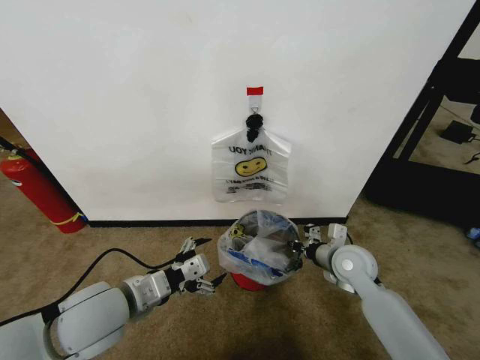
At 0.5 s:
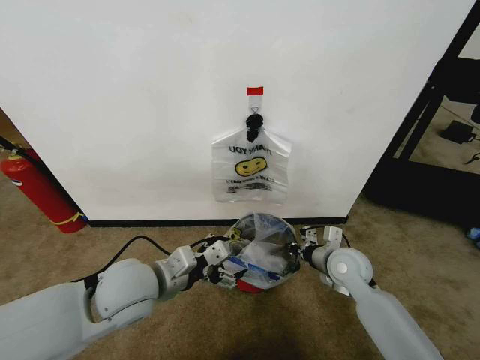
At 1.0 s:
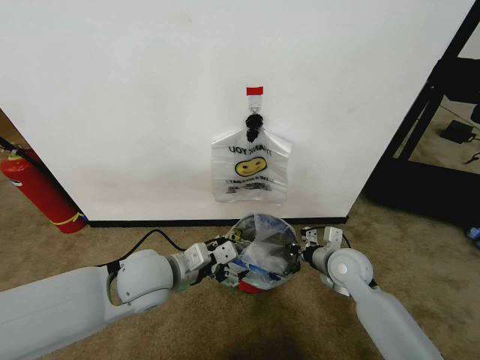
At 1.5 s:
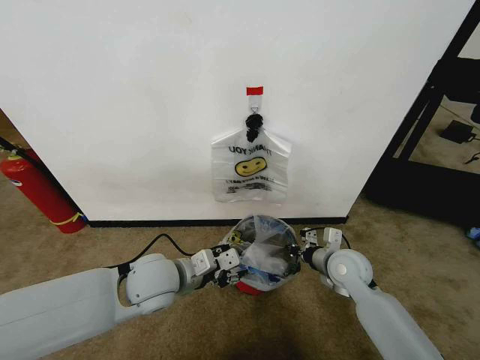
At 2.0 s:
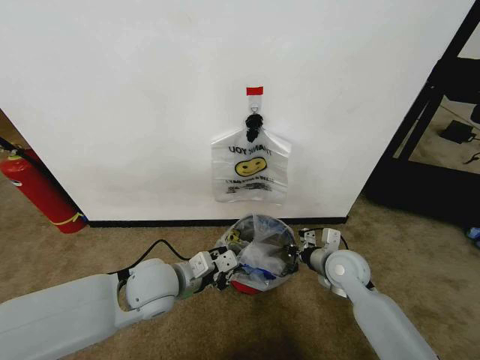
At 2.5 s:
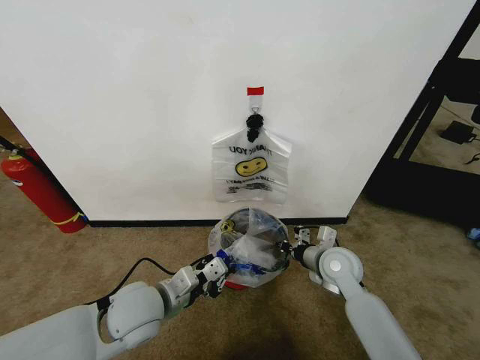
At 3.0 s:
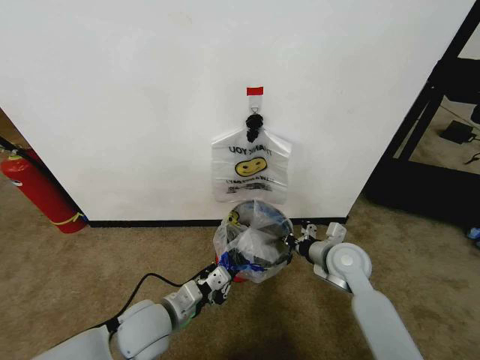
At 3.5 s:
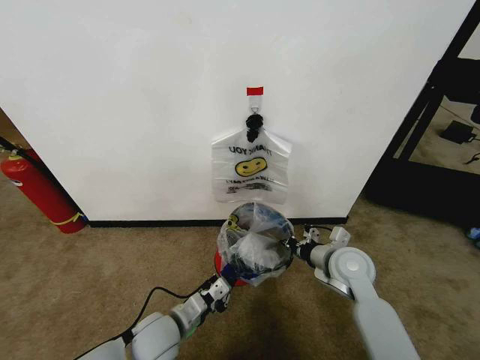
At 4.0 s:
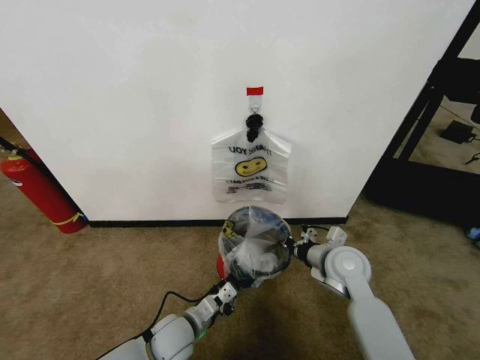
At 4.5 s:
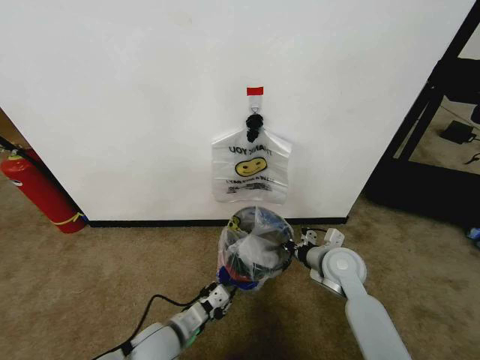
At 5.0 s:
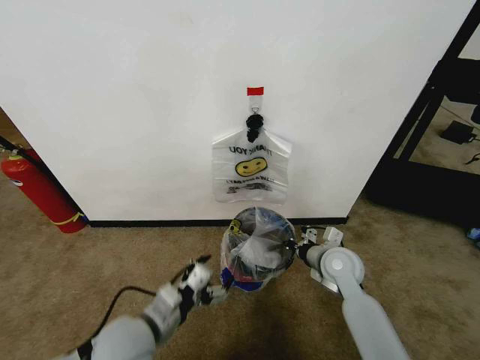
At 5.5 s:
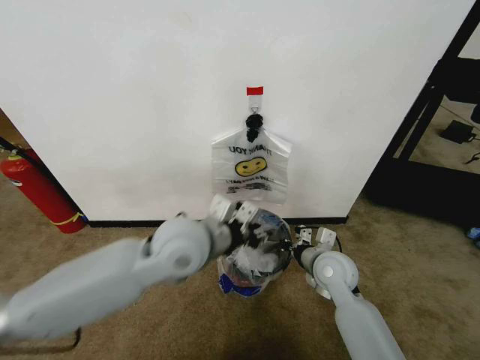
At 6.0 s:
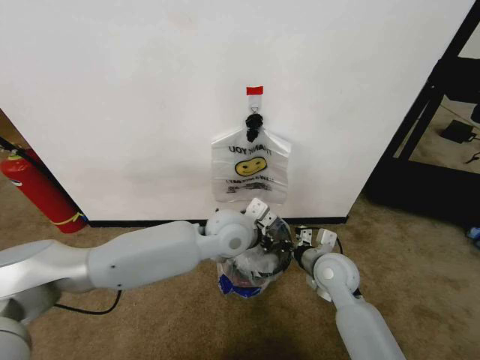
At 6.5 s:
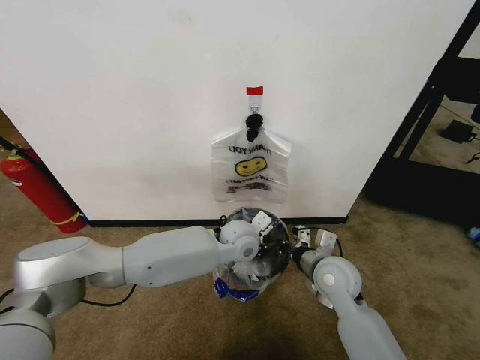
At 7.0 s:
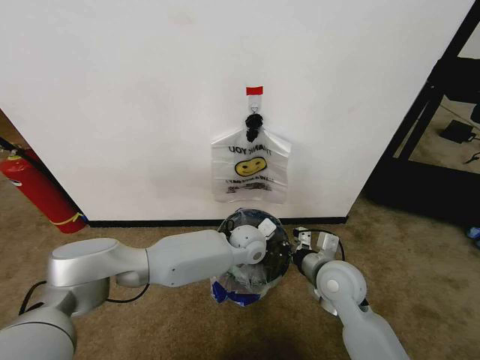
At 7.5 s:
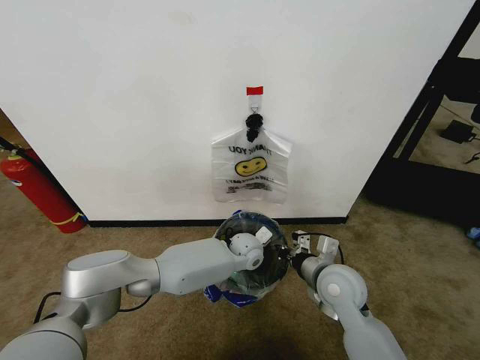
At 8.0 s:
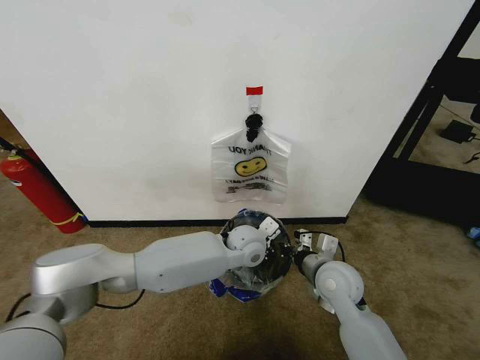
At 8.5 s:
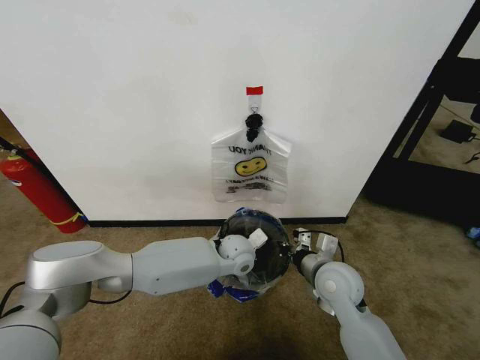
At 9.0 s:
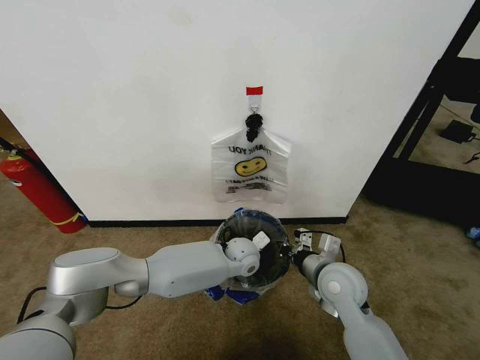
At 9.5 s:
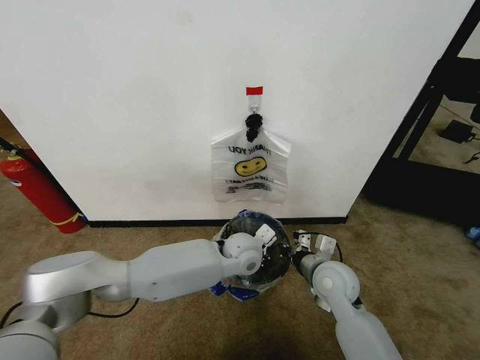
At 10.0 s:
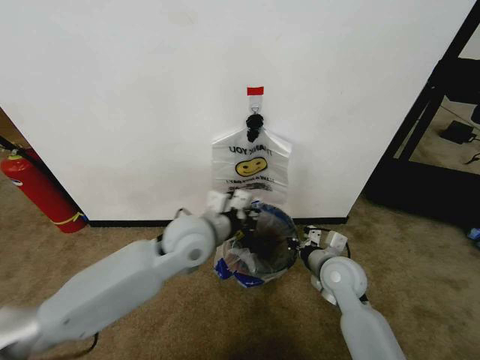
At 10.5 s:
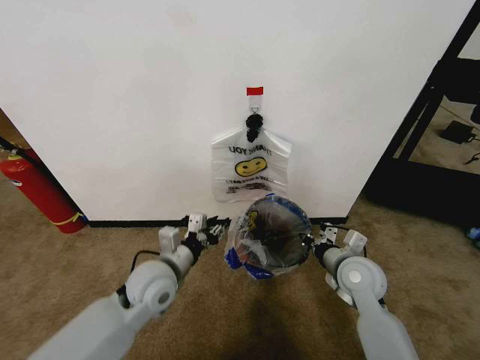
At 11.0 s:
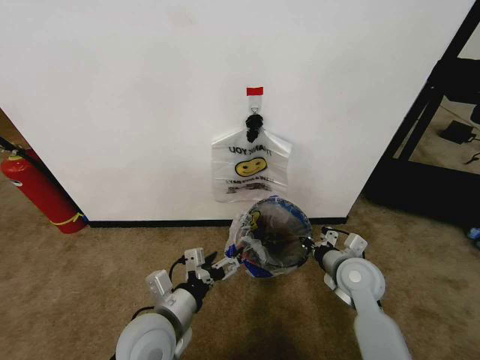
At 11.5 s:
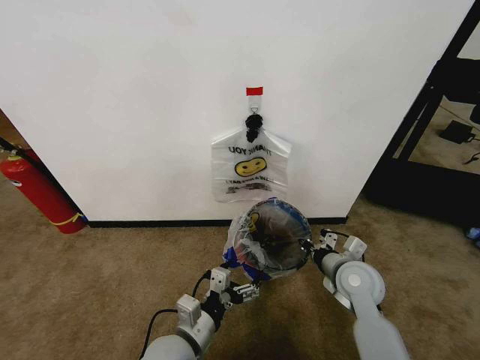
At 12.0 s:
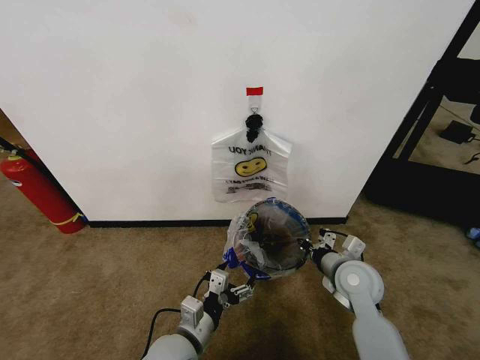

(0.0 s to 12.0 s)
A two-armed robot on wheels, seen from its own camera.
Task of the whole recording: Pick up the garbage bag from the wall and place it over the trash bin.
0.0 s - 2.0 s: The left gripper moves forward and to the right, some 10 cm, and closes its fingers.
2.0 s - 4.0 s: The left gripper heads downward, covering about 15 cm.
4.0 s - 6.0 s: The left gripper shifts approximately 30 cm upward, forward and to the right, and opens, then closes again.
6.0 s - 8.0 s: The left gripper moves downward, about 10 cm.
8.0 s - 10.0 s: The left gripper moves to the left, upward and backward, roughly 15 cm.
10.0 s - 12.0 s: The left gripper is displaced downward and backward by roughly 25 cm, and opens up.

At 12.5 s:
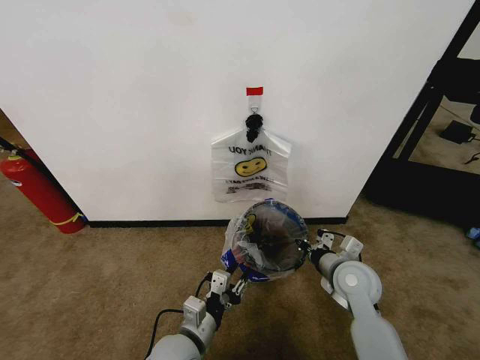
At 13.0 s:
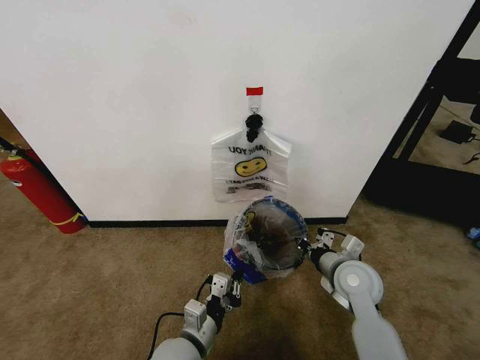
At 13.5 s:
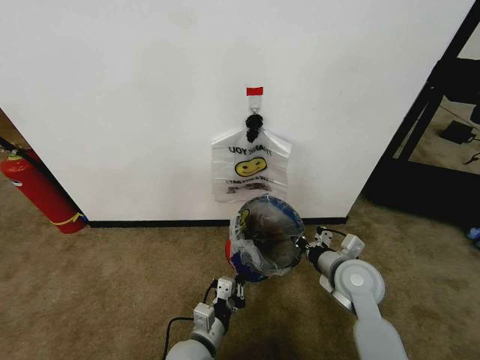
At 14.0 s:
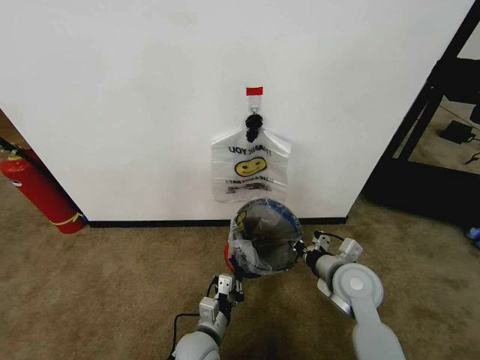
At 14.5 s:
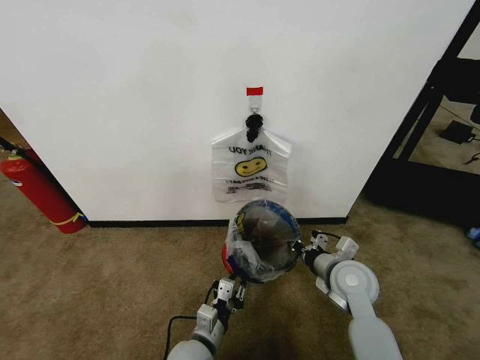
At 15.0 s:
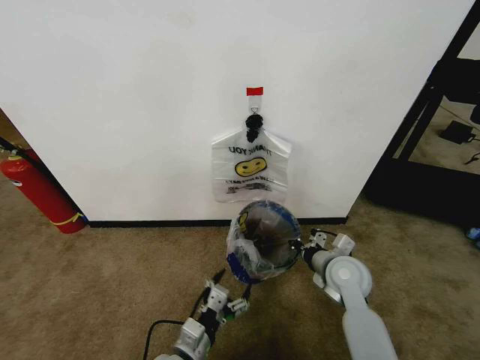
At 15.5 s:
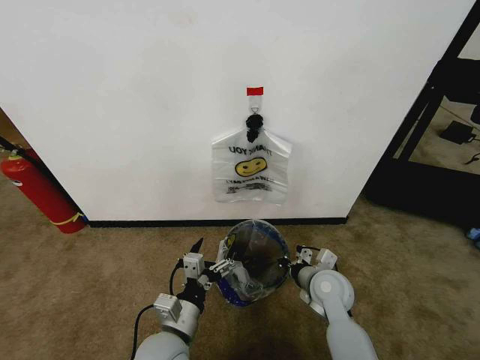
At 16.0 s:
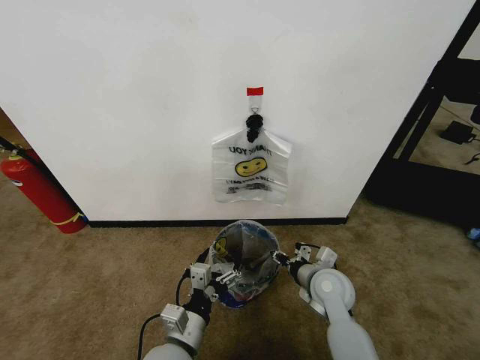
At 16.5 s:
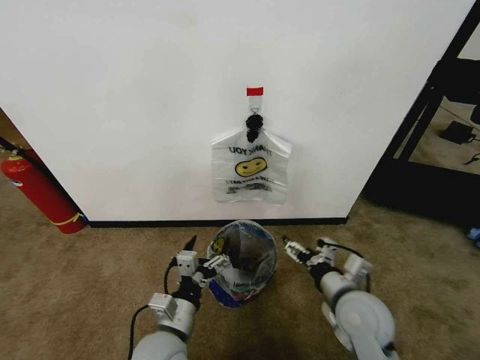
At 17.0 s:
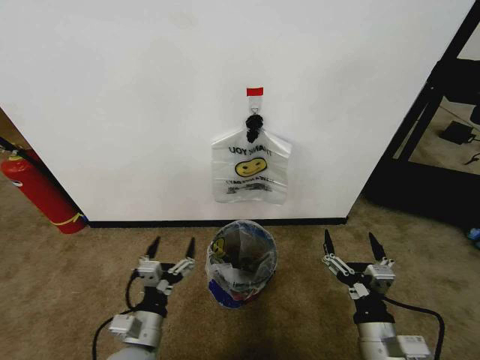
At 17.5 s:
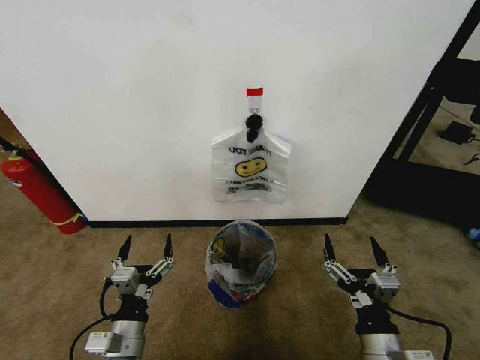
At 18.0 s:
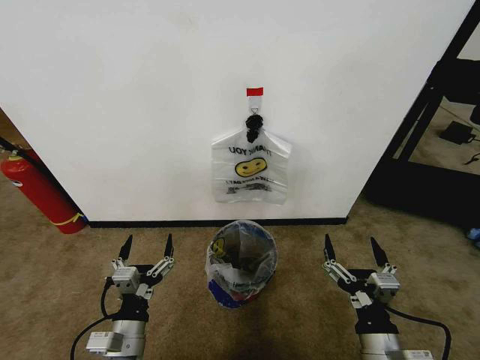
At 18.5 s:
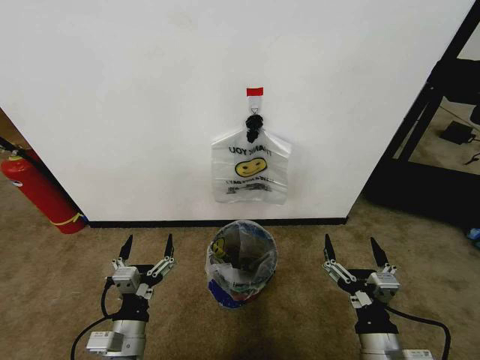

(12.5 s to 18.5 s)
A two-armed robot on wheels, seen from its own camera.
Task of the whole recording: Pick up the garbage bag from the wall and place it over the trash bin.
12.5 s - 14.5 s: The left gripper heads downward, covering roughly 5 cm.
14.5 s - 16.5 s: The right gripper shifts roughly 10 cm backward, and opens. Meanwhile the left gripper goes about 10 cm upward, and opens.
16.5 s - 18.5 s: The left gripper heads to the left, covering about 5 cm. Meanwhile the right gripper goes about 10 cm backward.

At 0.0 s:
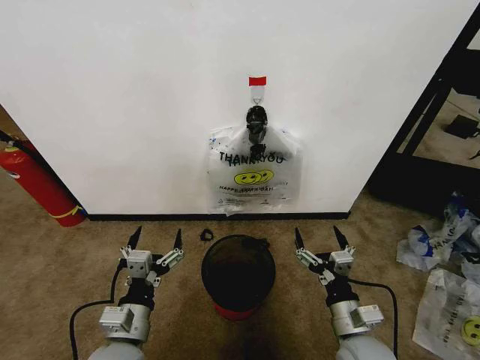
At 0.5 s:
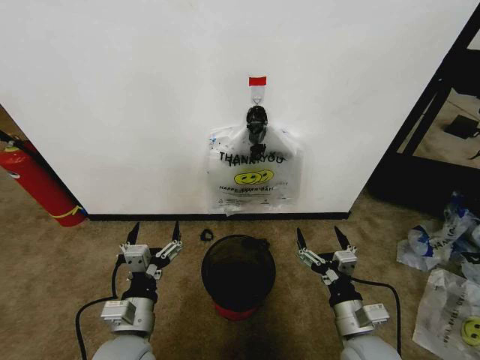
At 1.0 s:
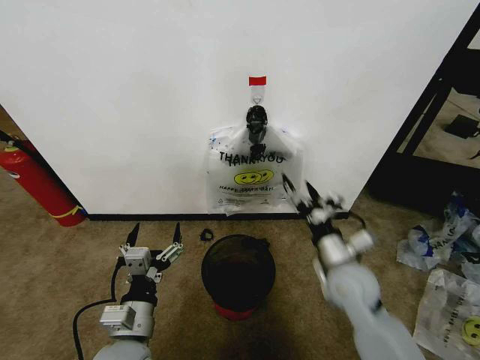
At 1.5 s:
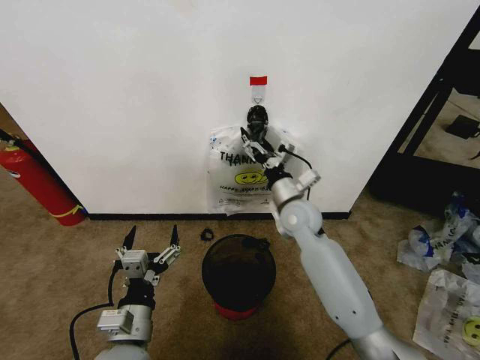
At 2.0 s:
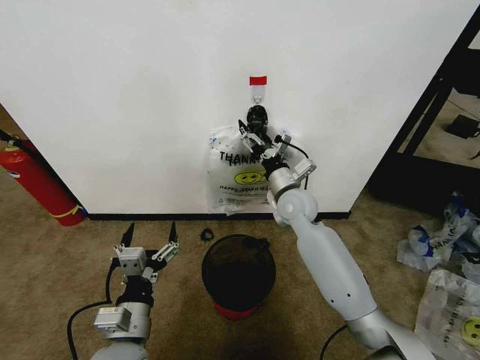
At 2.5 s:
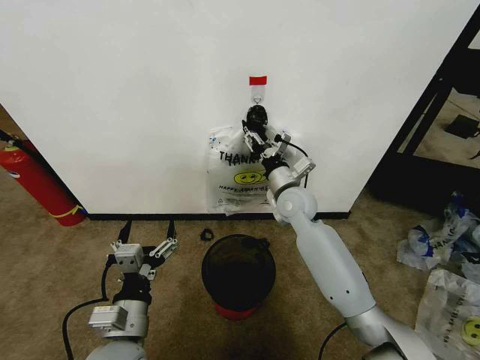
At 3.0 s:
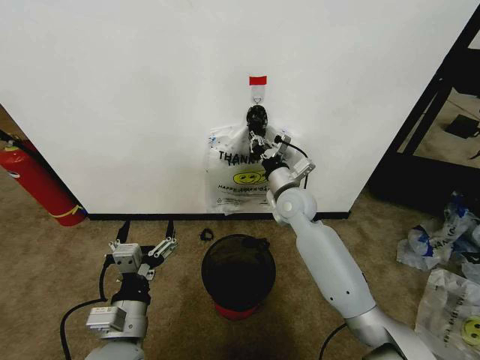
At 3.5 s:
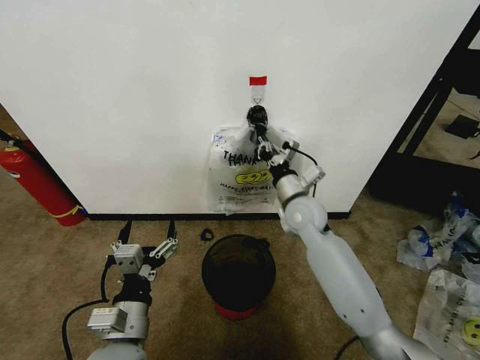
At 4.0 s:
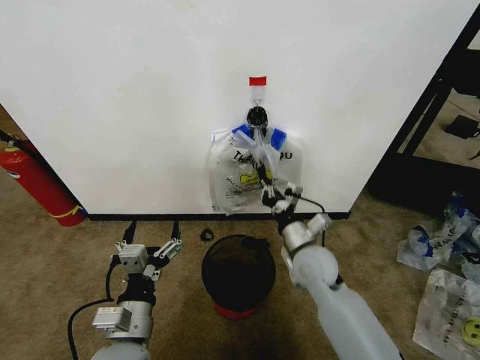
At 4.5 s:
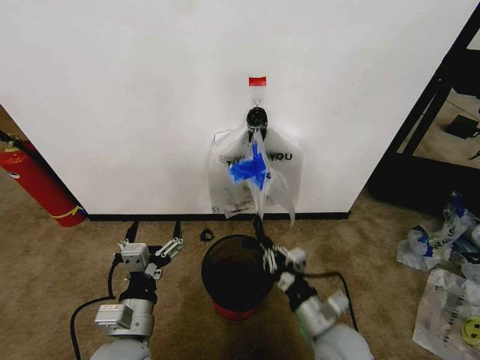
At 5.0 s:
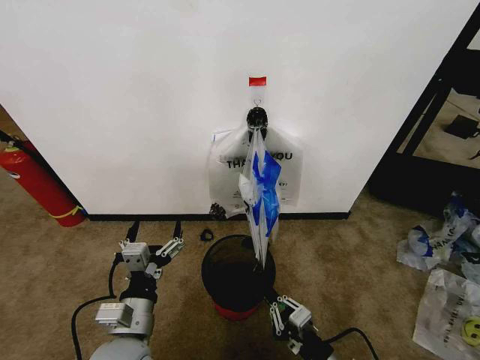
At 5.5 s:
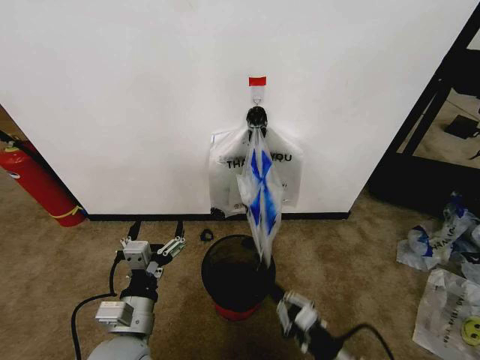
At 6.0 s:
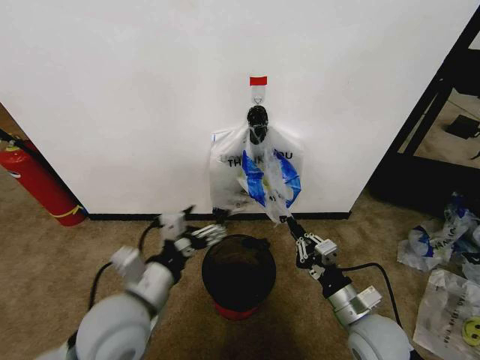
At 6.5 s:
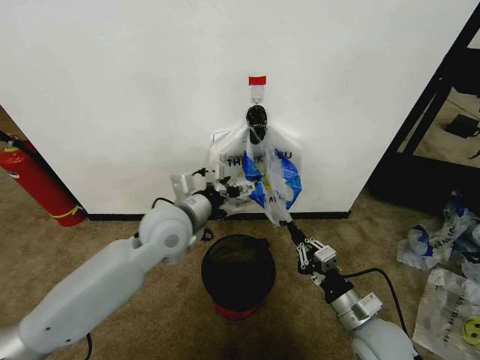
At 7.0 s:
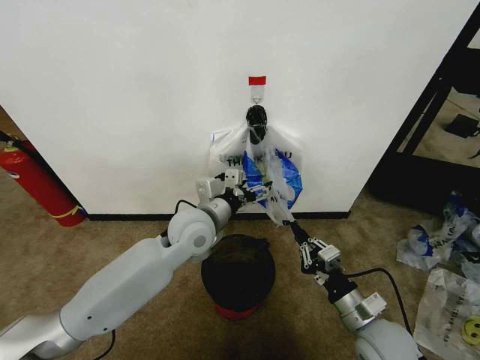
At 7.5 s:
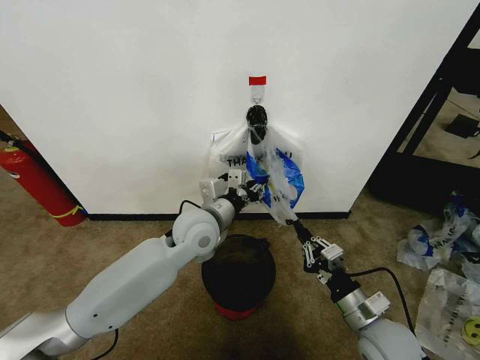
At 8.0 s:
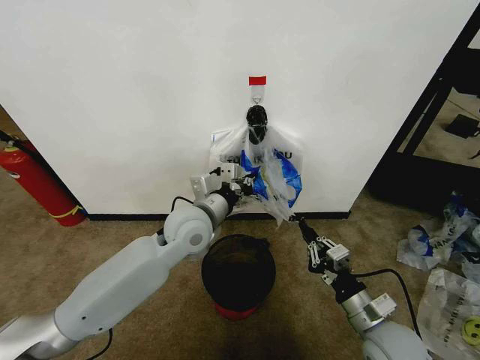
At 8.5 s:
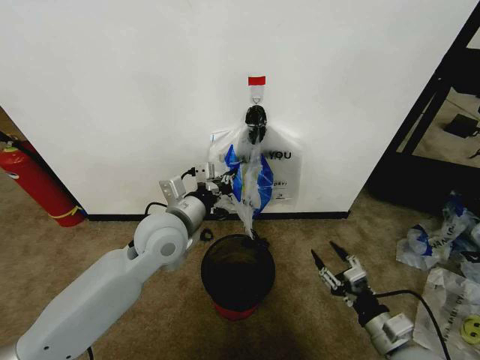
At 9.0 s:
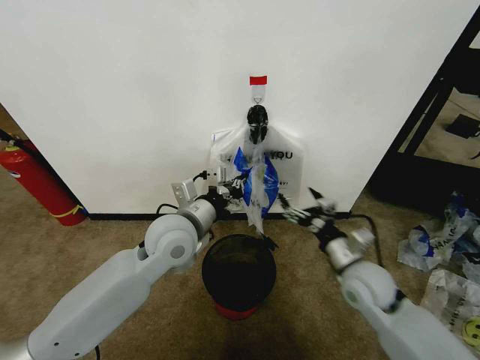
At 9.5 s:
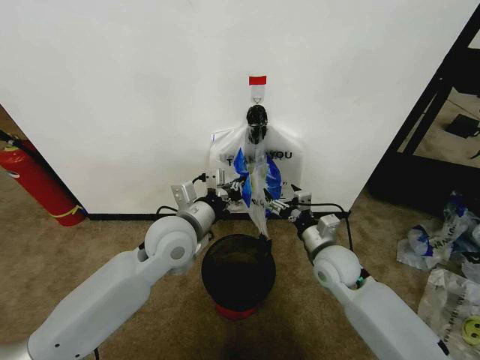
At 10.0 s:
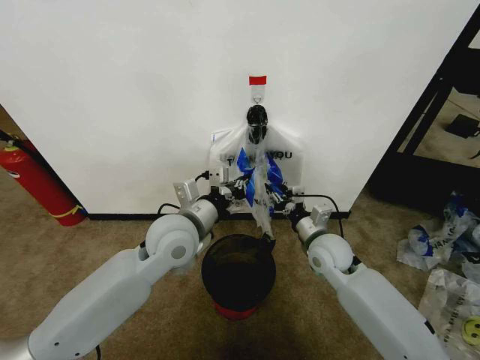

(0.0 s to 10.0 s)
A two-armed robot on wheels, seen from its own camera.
Task of the whole recording: Pick up the garbage bag from the wall and place it over the trash bin.
2.0 s - 4.0 s: The right gripper is displaced backward and downward by approximately 15 cm, and closes up.
4.0 s - 6.0 s: The right gripper moves backward and to the right, about 15 cm. The left gripper moves upward, roughly 10 cm.
6.0 s - 8.0 s: The left gripper moves forward and to the right, roughly 20 cm, and closes up.
8.0 s - 10.0 s: The right gripper travels forward by some 20 cm, and opens up.
